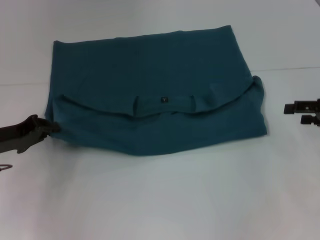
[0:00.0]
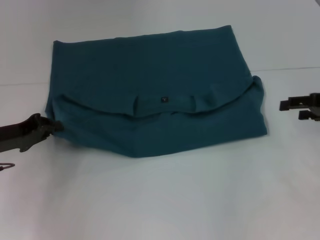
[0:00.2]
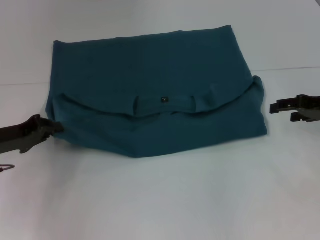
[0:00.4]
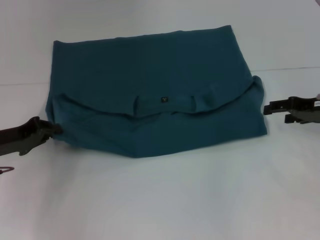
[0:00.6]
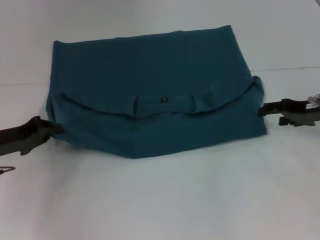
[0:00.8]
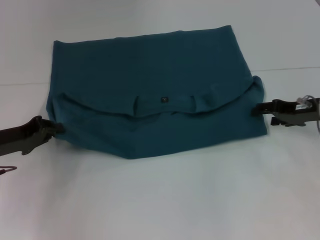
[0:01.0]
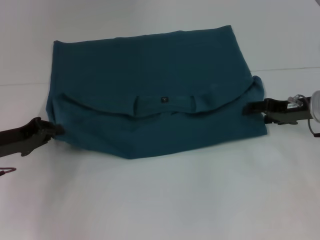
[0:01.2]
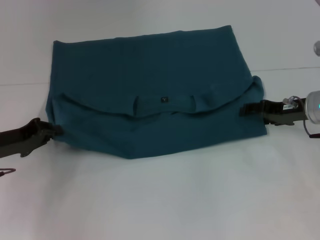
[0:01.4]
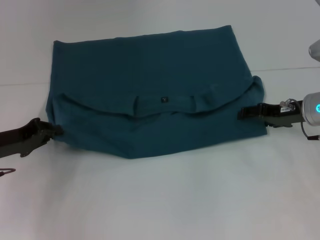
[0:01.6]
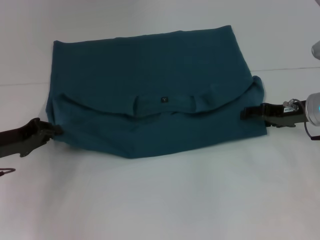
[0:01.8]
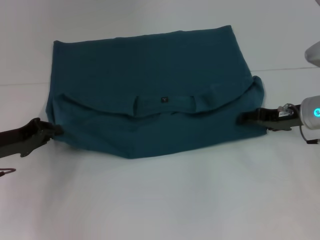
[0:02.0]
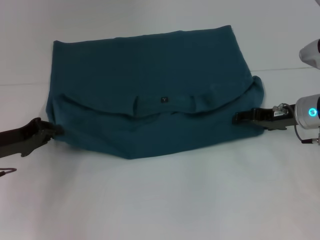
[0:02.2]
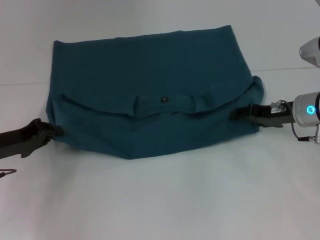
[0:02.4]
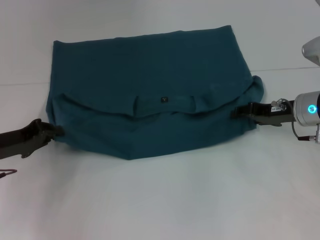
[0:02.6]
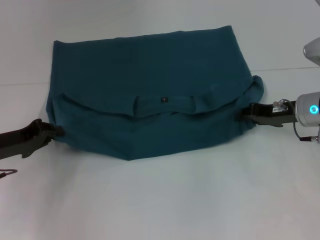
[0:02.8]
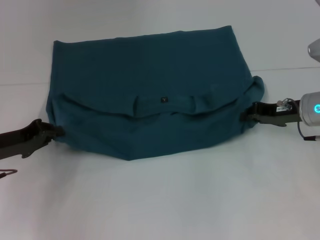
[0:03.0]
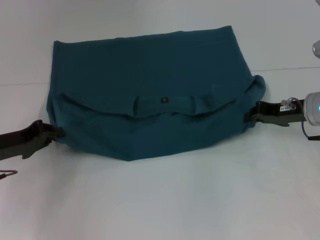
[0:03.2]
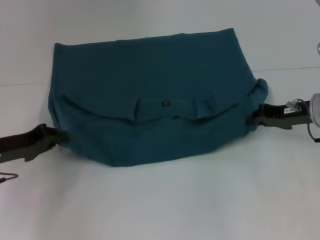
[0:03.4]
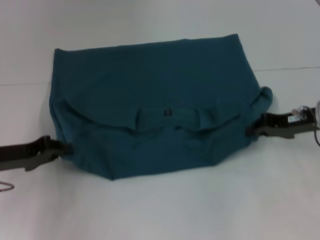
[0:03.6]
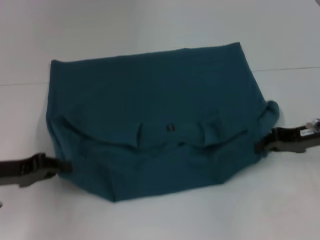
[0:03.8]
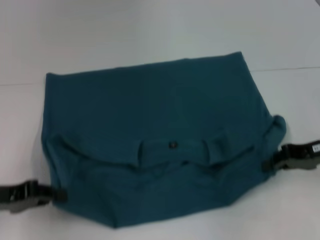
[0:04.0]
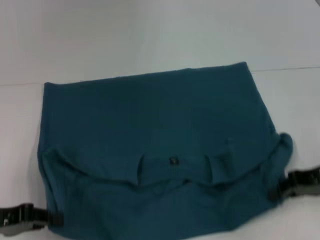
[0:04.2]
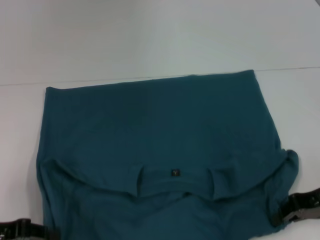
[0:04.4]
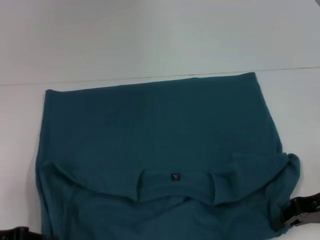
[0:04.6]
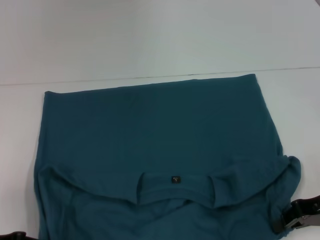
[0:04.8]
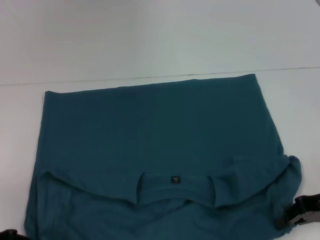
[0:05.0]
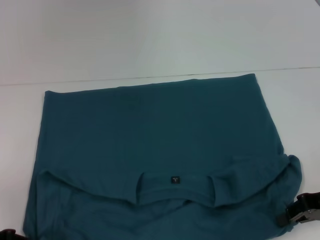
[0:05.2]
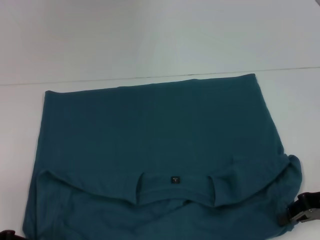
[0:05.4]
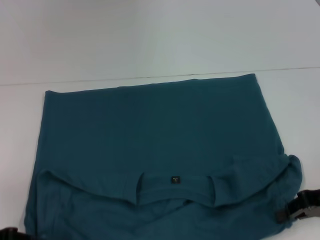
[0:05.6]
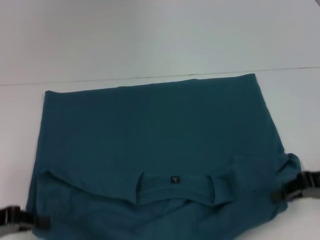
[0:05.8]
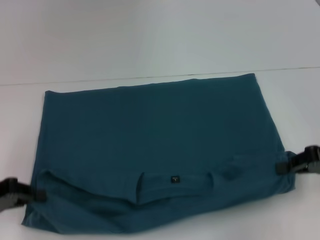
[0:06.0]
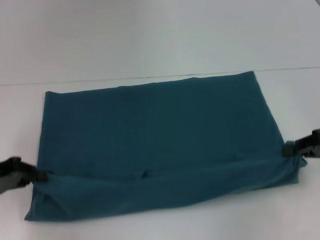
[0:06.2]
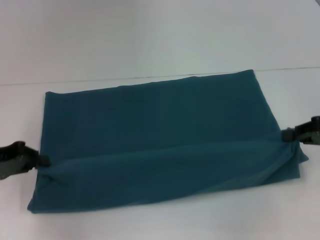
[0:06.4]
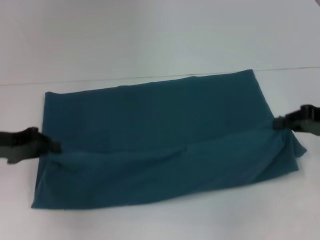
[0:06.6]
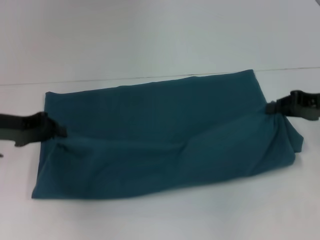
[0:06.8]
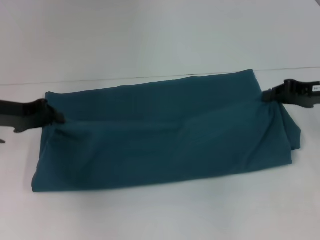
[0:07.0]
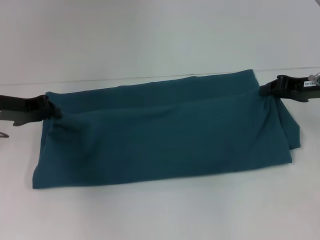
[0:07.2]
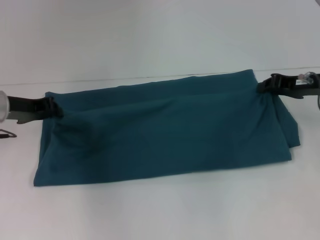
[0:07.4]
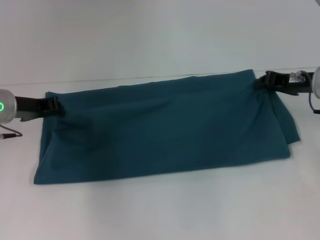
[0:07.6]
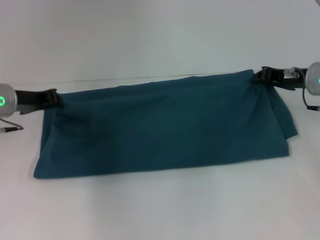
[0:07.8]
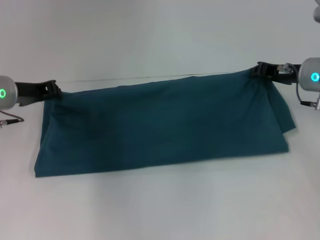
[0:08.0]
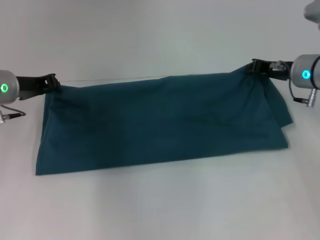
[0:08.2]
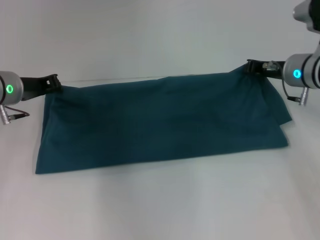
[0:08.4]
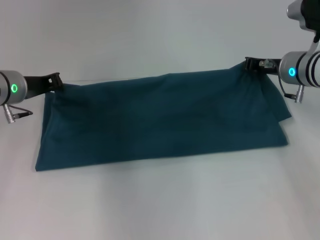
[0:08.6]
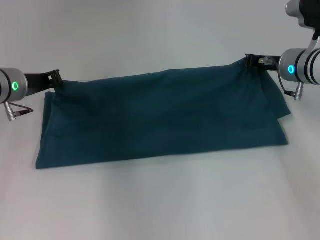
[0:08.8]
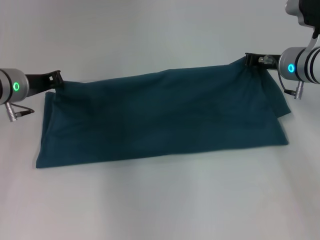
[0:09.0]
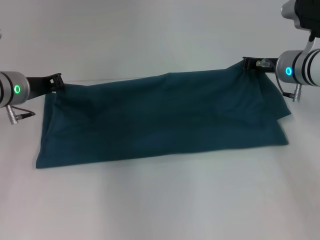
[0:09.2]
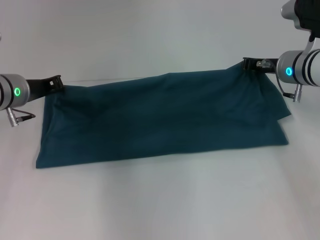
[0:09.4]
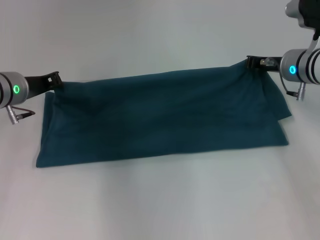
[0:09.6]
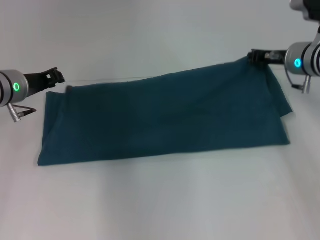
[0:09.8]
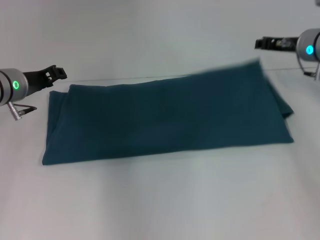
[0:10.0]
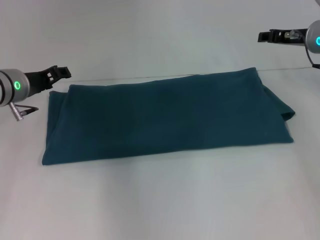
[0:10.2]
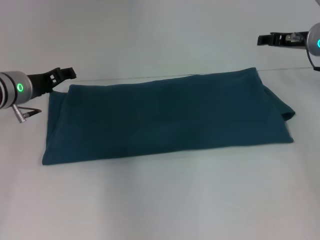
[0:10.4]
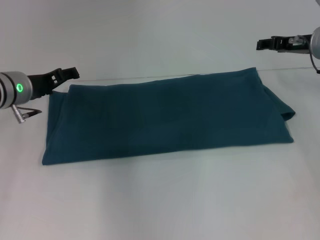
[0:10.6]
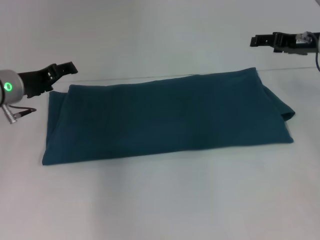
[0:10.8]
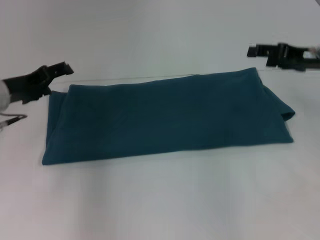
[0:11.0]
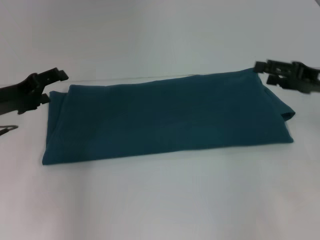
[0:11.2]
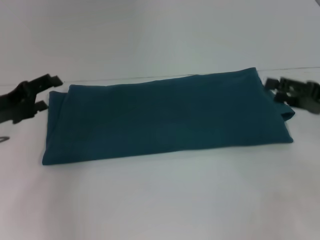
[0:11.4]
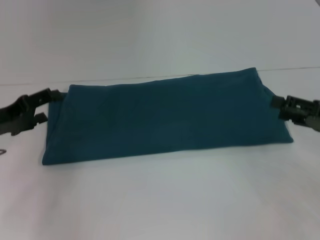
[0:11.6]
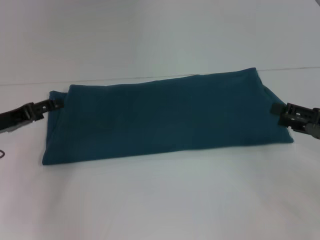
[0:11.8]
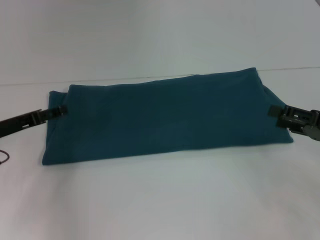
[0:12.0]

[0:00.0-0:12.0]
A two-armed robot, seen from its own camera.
Step, 0:00.0 to 0:04.6: Pull the clothes with your left hand.
Step, 0:00.0 to 0:04.6: Pull the clothes with your right hand.
Step, 0:04.8 to 0:10.0: Fold the clothes to the right.
0:00.0 to 0:01.6: The right gripper moves to the left and forward, roughly 10 cm.
0:01.6 to 0:03.0: The right gripper closes.
0:03.0 to 0:04.4: The grippers both shift backward by about 10 cm.
0:04.4 to 0:06.0: There are only small adjustments of the grippers.
0:06.0 to 0:07.6: The left gripper moves forward and to the right, about 15 cm. Meanwhile the right gripper shifts some 10 cm forward.
0:07.6 to 0:09.0: The right gripper moves roughly 5 cm.
0:09.0 to 0:10.4: The left gripper opens its fingers. Meanwhile the right gripper changes place by some 5 cm, and opens up.
0:10.4 to 0:12.0: The right gripper goes approximately 20 cm backward. The left gripper moves backward and to the left, roughly 10 cm.

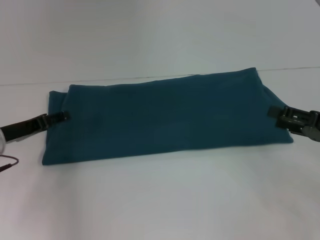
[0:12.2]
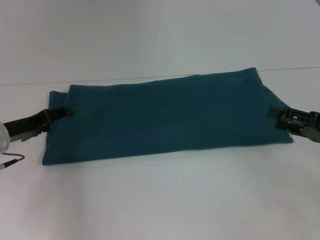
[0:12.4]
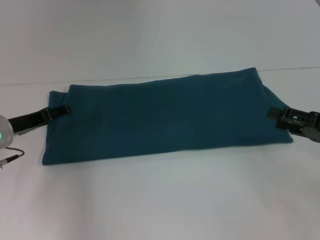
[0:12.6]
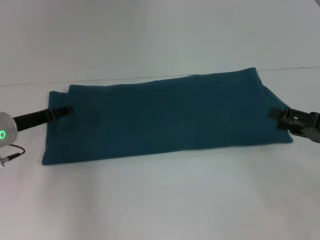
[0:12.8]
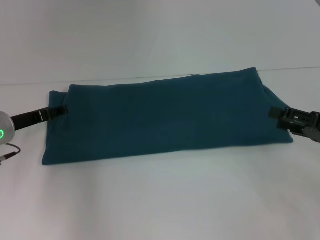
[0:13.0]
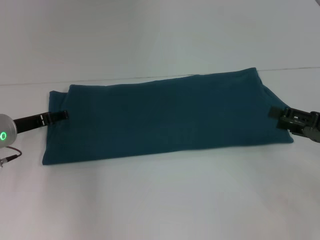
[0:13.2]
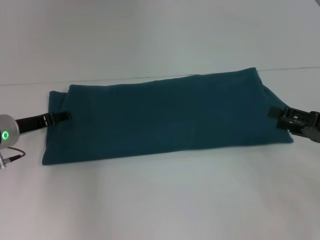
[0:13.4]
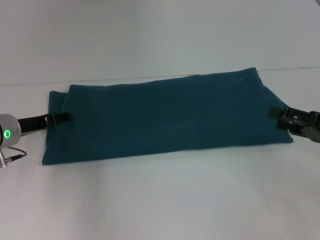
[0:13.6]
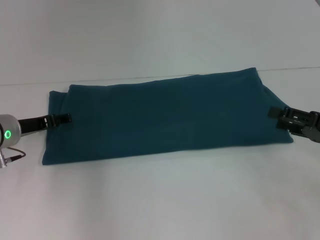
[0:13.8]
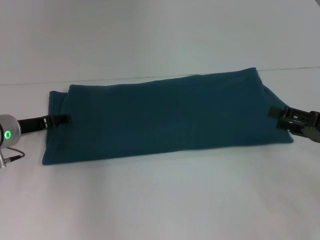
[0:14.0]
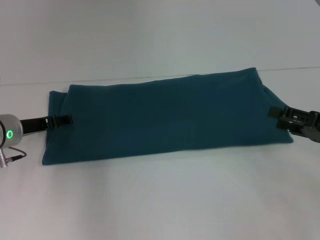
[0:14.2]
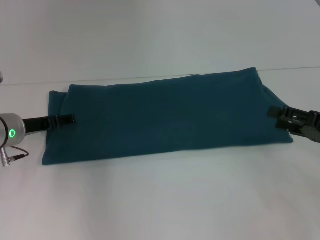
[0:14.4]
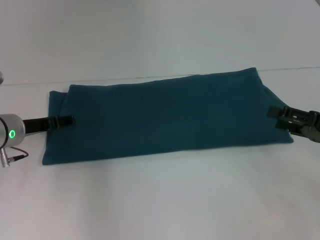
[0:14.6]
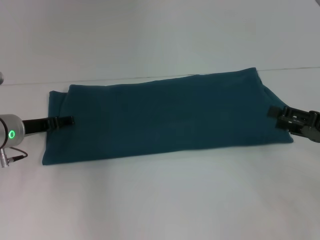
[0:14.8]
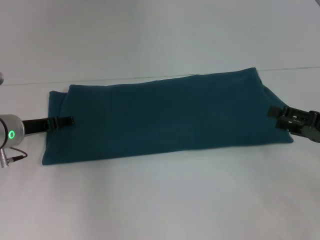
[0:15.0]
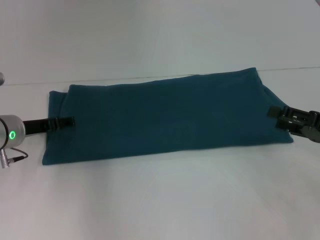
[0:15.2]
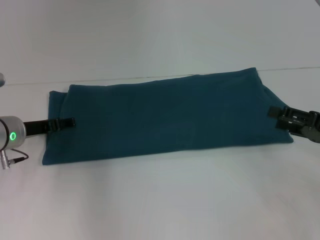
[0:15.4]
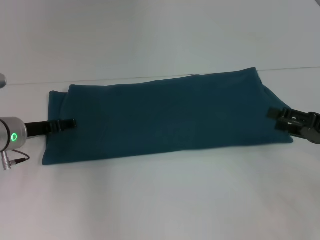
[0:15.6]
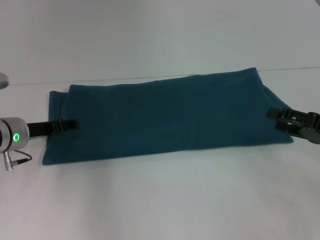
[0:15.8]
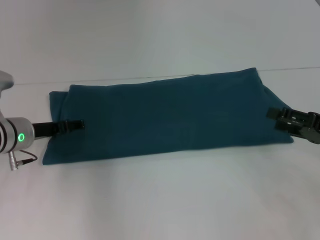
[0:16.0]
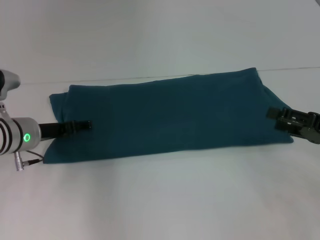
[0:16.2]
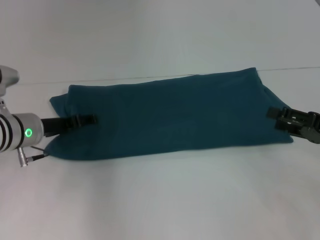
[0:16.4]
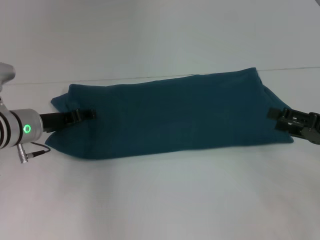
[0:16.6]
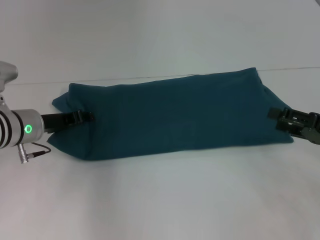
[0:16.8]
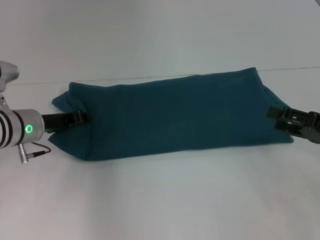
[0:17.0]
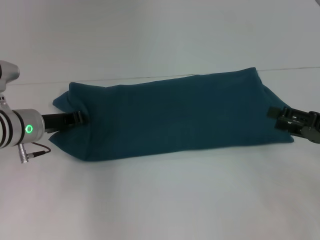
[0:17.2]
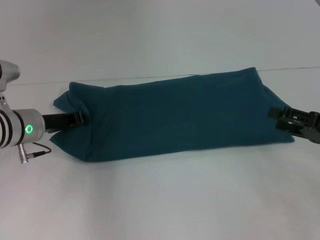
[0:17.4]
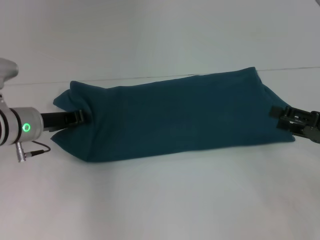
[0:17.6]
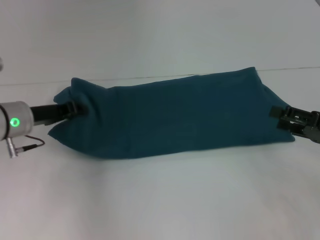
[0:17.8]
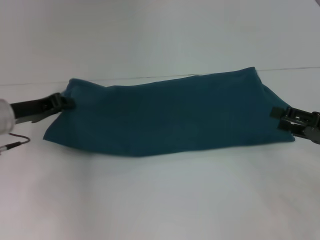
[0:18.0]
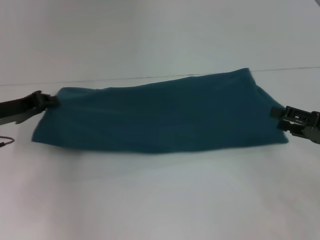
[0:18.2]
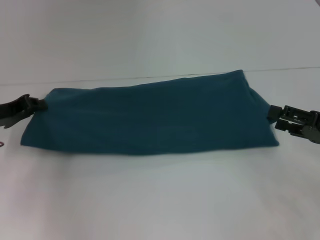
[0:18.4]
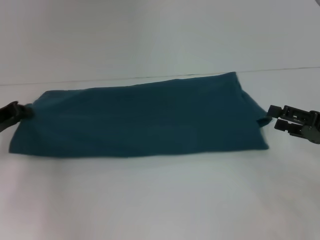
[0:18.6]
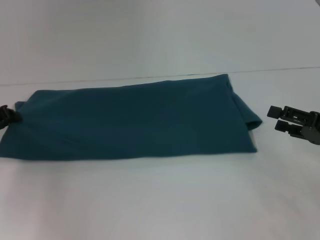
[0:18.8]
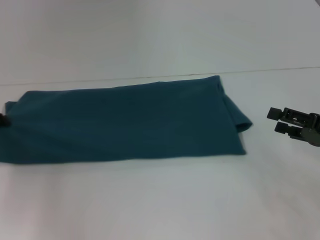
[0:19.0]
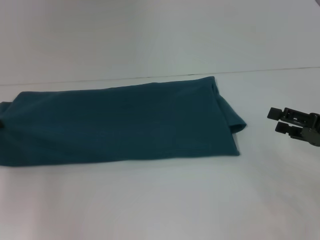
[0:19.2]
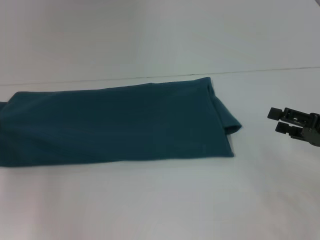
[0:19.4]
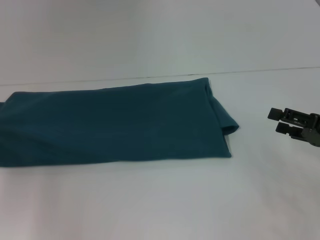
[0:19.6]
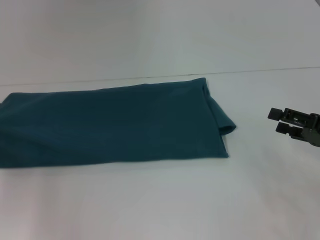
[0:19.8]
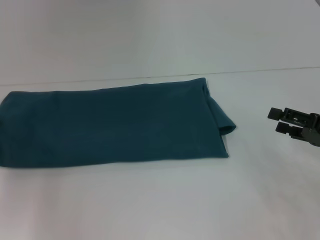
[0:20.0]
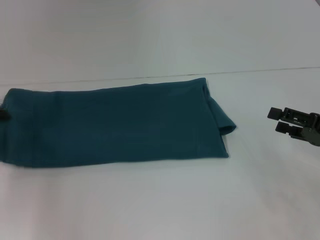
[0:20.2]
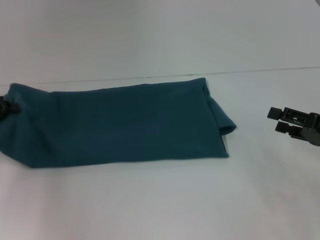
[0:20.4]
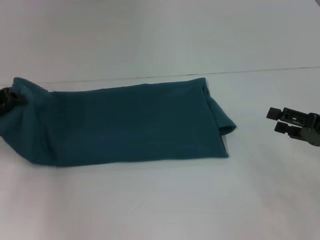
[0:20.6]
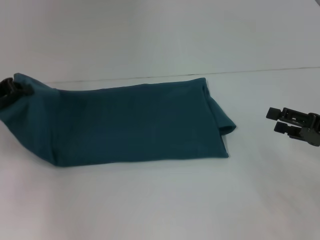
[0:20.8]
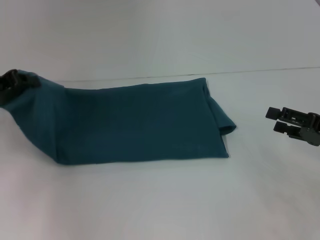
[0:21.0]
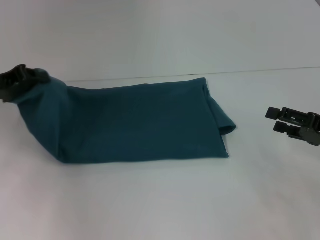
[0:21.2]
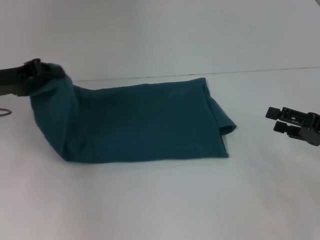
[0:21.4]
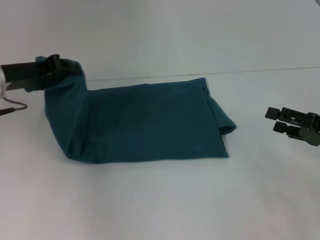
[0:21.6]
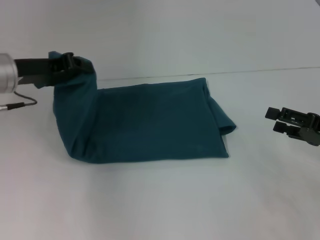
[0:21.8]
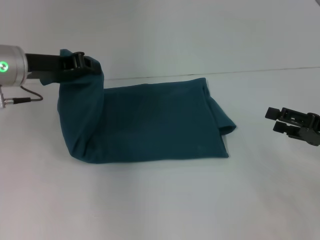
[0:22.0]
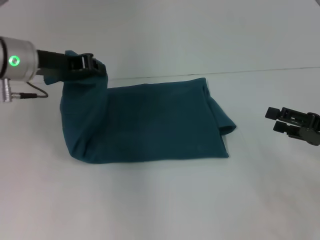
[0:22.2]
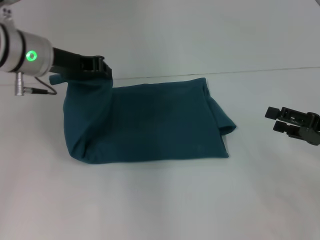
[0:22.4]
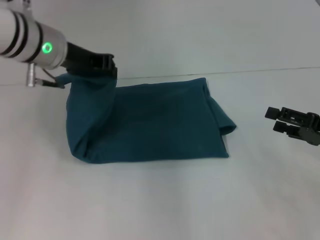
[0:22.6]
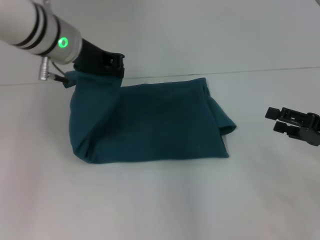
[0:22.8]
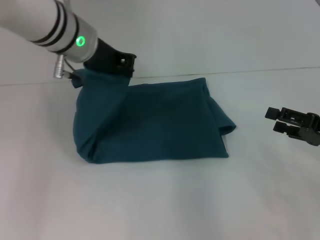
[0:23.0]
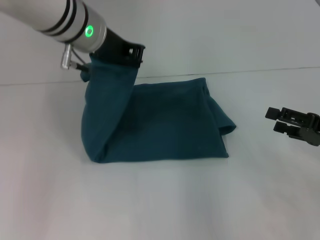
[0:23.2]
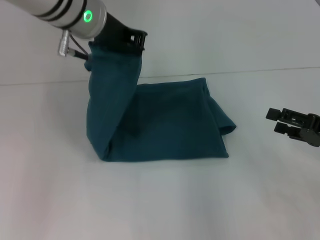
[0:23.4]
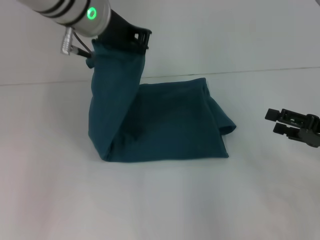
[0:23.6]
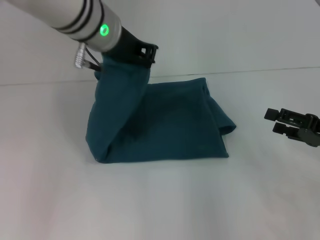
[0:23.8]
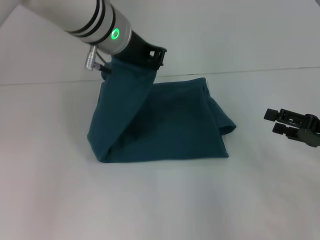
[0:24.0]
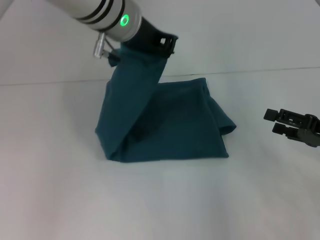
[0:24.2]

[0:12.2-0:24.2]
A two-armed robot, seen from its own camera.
0:12.2 to 0:13.8: The grippers stay close to where they were, moving slightly.
0:13.8 to 0:15.2: Neither gripper changes place.
0:15.2 to 0:16.6: The grippers make only small movements.
0:16.6 to 0:18.2: The left gripper goes approximately 5 cm to the left, and closes up.
0:18.2 to 0:19.8: The left gripper is displaced to the left by roughly 10 cm.
0:19.8 to 0:21.2: The left gripper is displaced upward and to the right by some 10 cm.
0:21.2 to 0:22.6: The left gripper shifts approximately 15 cm to the right and upward.
0:22.6 to 0:24.2: The left gripper heads to the right, covering some 10 cm.
